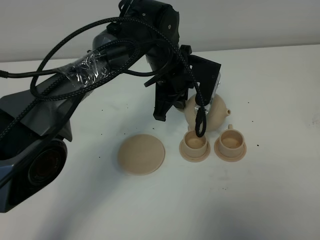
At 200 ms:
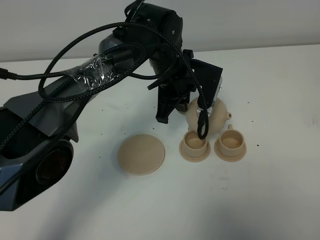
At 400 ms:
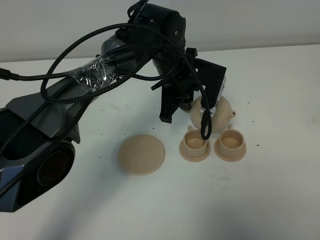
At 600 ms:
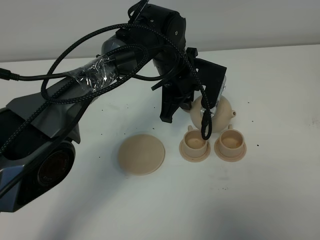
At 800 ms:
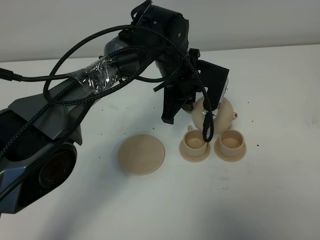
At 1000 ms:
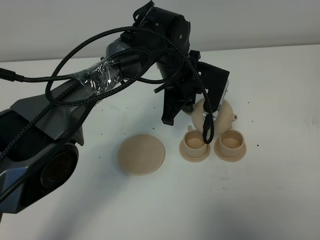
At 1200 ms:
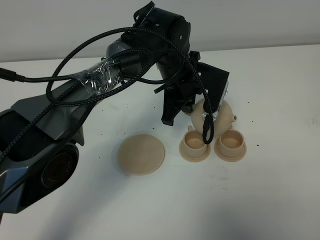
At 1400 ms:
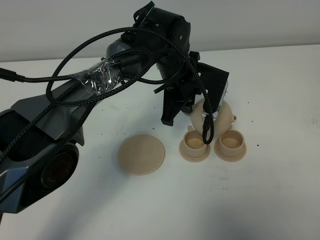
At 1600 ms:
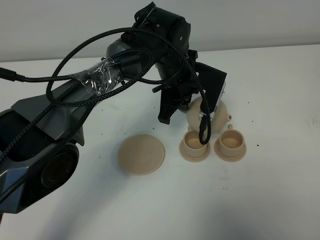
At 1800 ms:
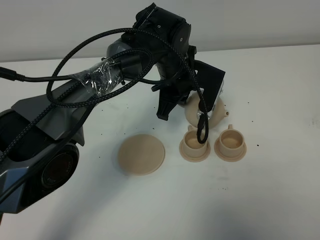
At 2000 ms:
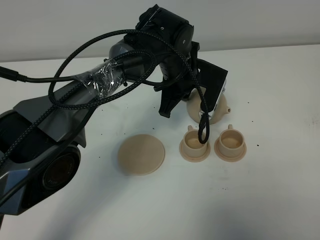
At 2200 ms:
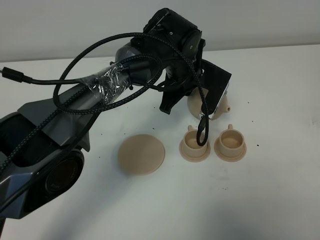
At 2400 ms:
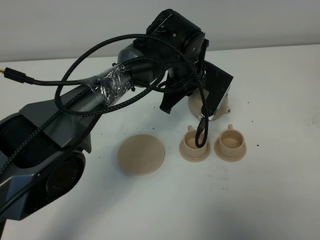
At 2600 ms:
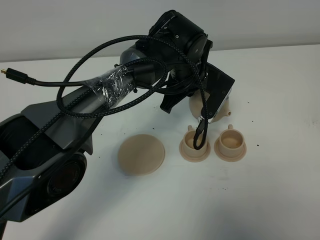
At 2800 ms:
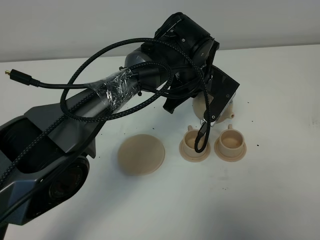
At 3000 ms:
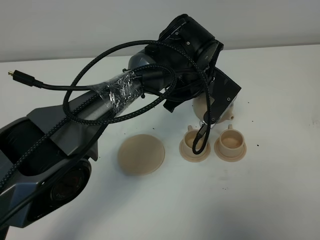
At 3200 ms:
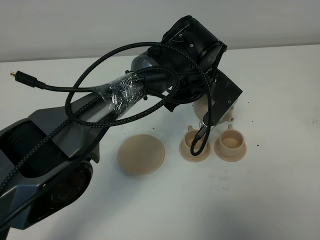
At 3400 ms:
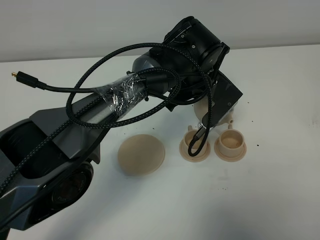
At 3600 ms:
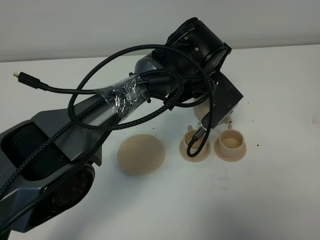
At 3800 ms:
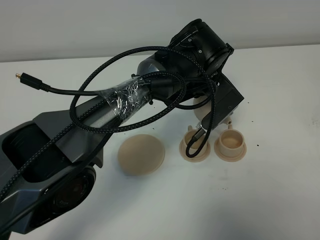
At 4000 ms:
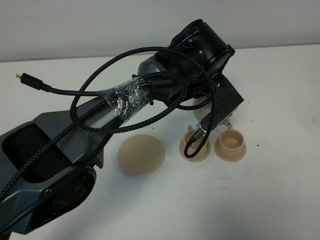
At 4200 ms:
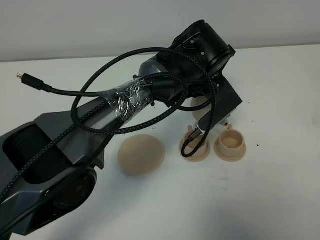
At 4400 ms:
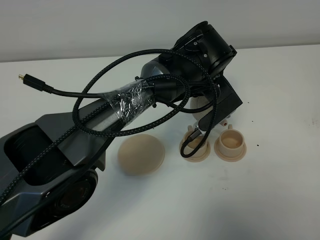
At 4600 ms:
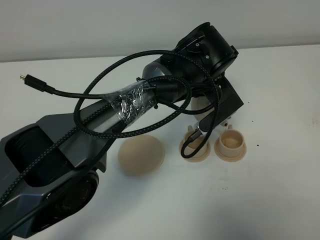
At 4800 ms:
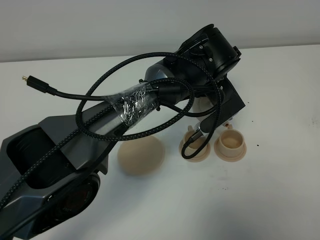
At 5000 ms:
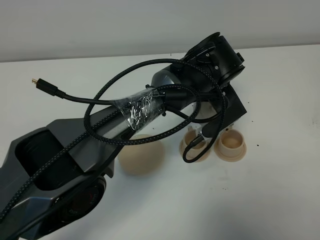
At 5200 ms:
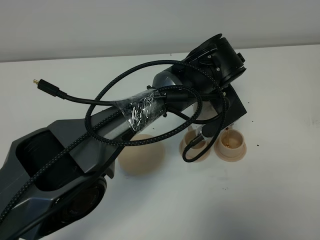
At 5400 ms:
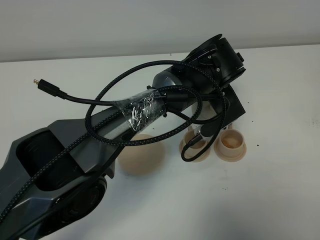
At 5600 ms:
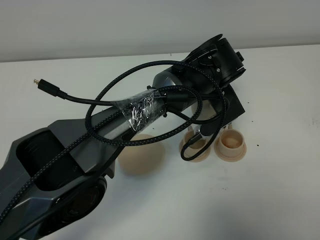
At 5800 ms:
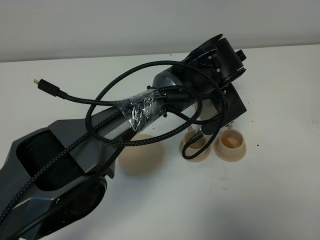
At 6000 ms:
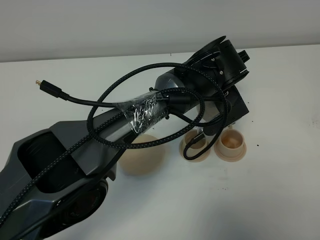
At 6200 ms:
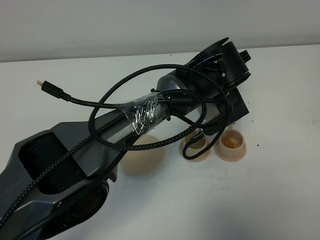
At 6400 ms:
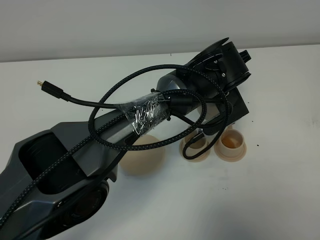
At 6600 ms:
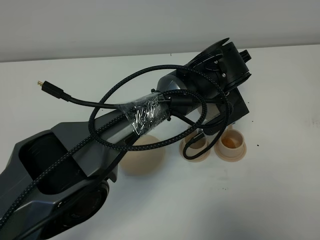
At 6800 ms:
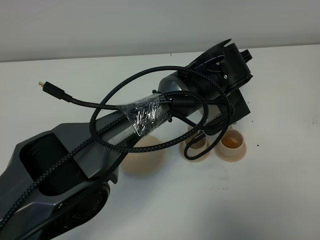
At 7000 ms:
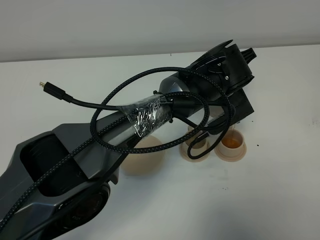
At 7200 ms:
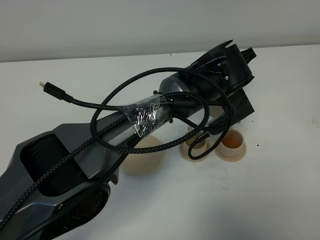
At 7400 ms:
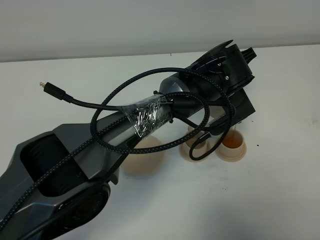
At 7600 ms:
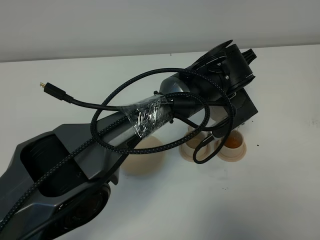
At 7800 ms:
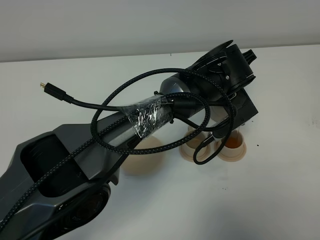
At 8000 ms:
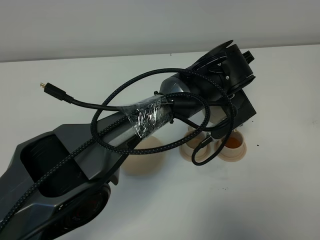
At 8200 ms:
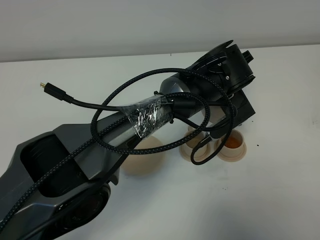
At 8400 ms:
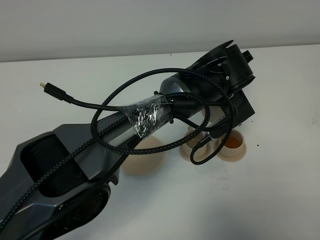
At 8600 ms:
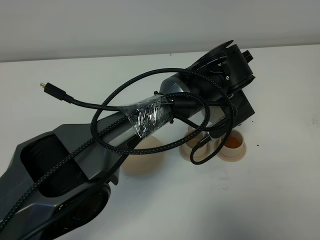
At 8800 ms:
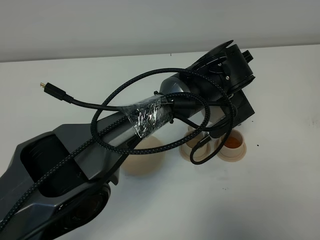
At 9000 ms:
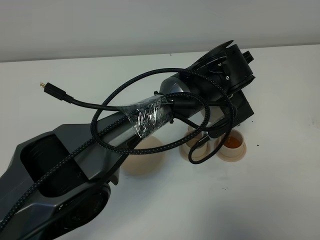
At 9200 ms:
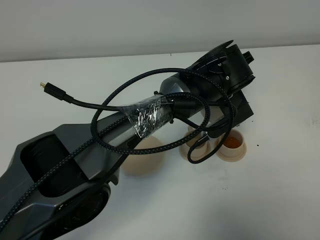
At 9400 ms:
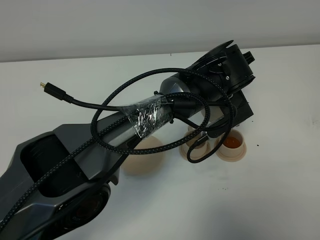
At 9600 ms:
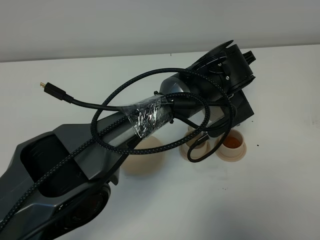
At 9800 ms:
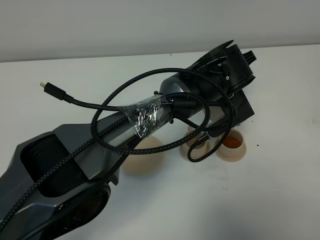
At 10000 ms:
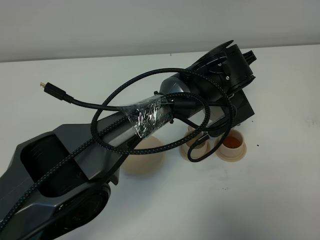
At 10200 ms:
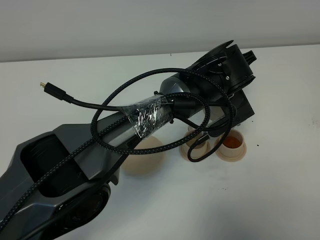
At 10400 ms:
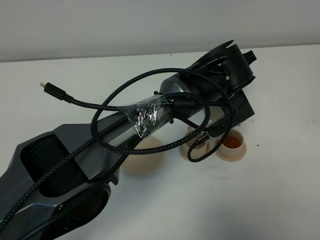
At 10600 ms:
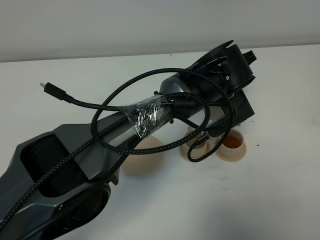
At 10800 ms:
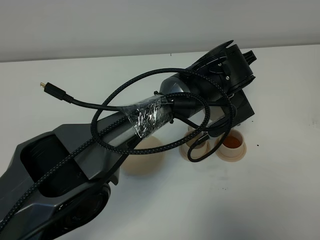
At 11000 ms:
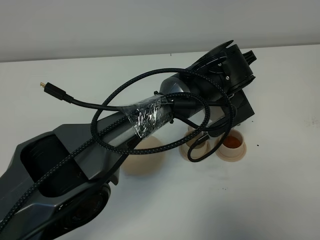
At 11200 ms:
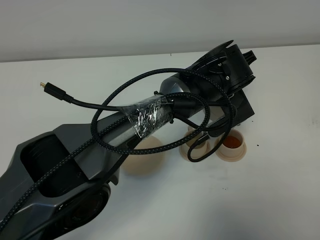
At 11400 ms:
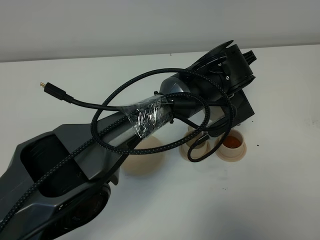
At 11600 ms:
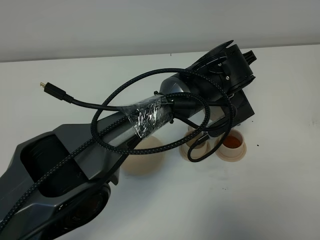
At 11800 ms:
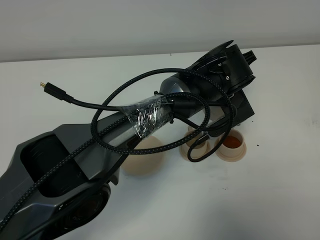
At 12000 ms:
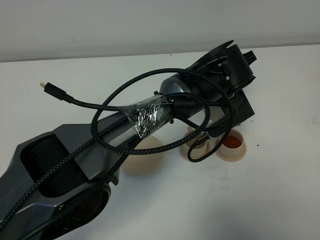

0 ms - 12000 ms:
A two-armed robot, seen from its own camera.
Task of the whole recording: grasp the brown teapot and pour the tea into the two brown teacups one by one, put the brown teapot back in its original place.
0 ms - 1600 ms: The grippers move only a little.
3000 ms - 4400 ms: The grippers make only small movements.
6000 ms - 12000 ms: The two grippers keep their place.

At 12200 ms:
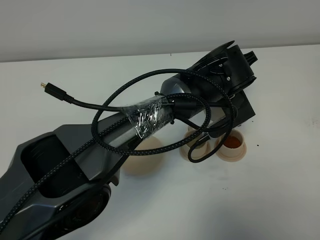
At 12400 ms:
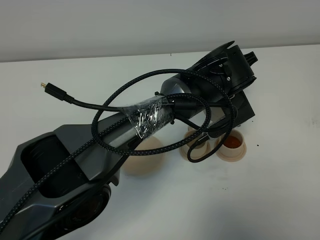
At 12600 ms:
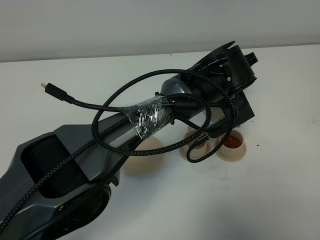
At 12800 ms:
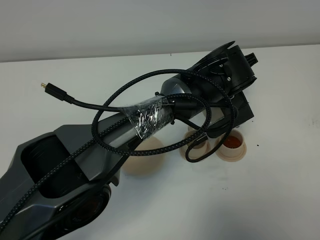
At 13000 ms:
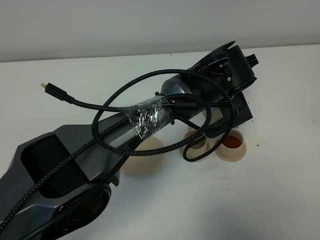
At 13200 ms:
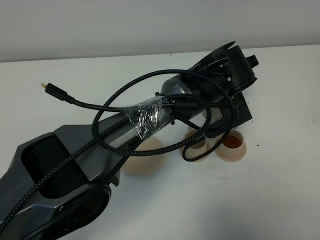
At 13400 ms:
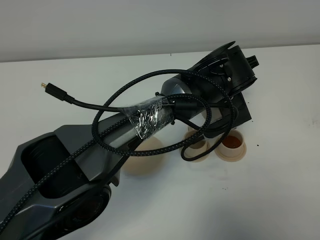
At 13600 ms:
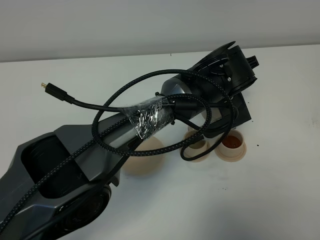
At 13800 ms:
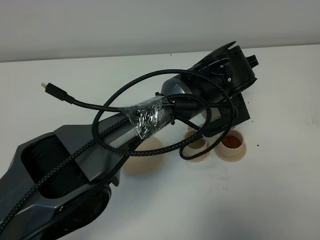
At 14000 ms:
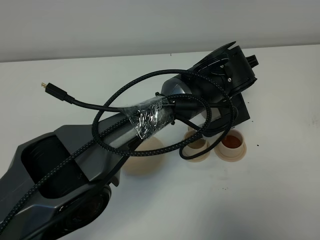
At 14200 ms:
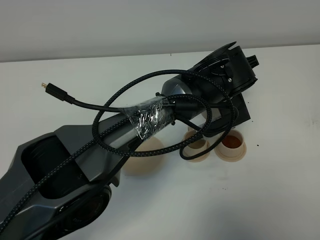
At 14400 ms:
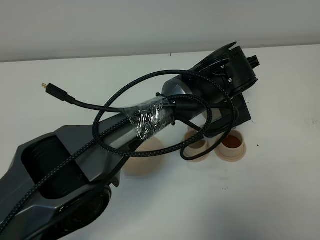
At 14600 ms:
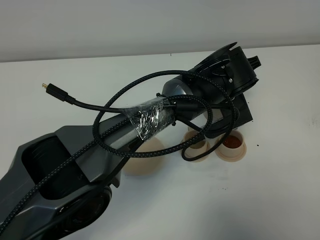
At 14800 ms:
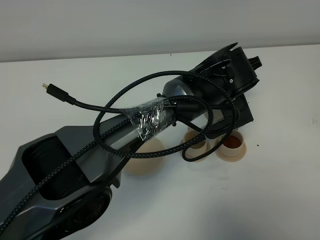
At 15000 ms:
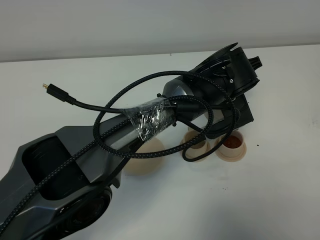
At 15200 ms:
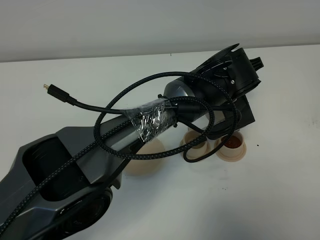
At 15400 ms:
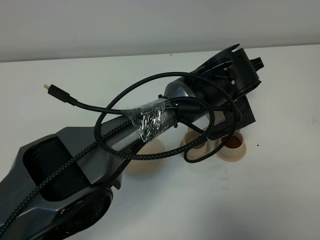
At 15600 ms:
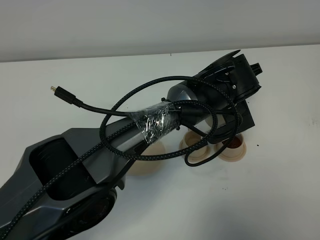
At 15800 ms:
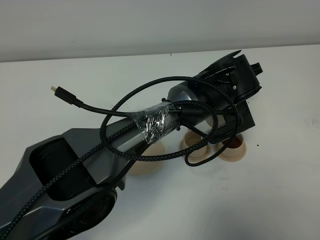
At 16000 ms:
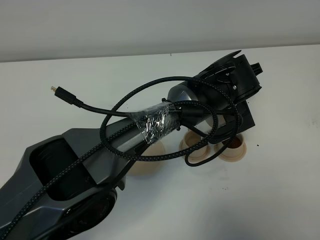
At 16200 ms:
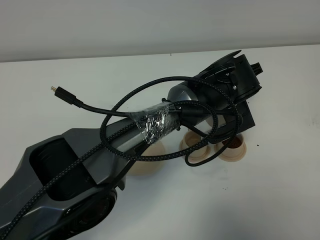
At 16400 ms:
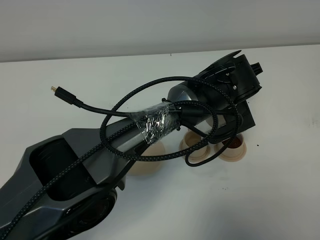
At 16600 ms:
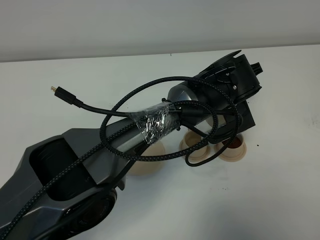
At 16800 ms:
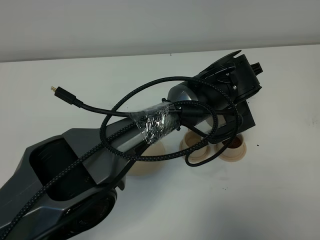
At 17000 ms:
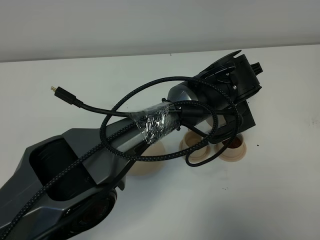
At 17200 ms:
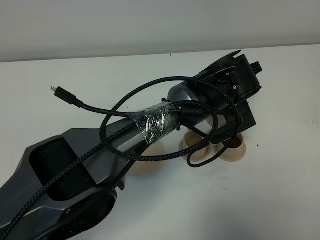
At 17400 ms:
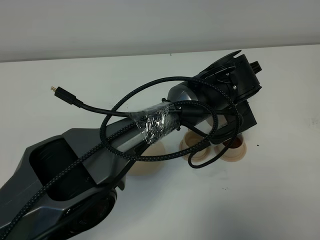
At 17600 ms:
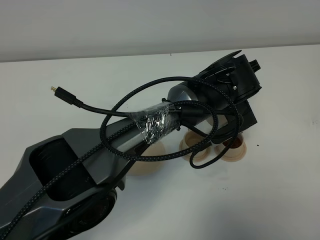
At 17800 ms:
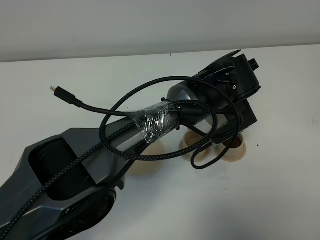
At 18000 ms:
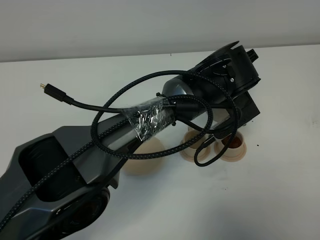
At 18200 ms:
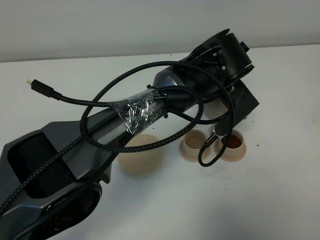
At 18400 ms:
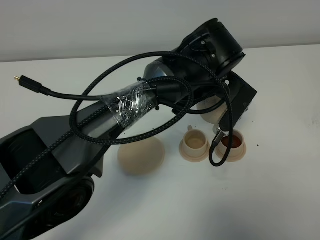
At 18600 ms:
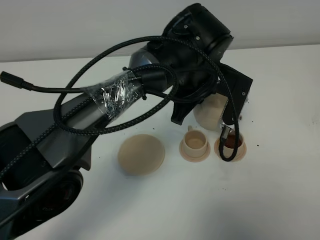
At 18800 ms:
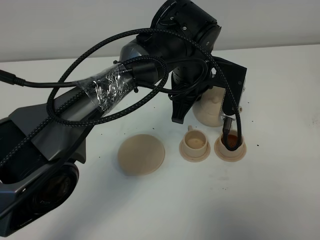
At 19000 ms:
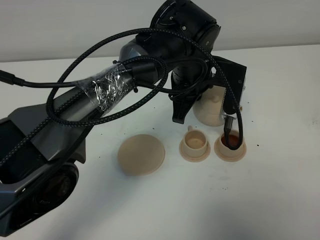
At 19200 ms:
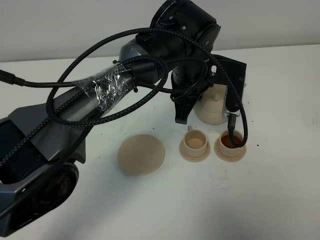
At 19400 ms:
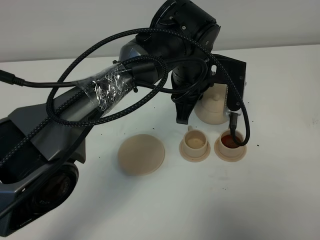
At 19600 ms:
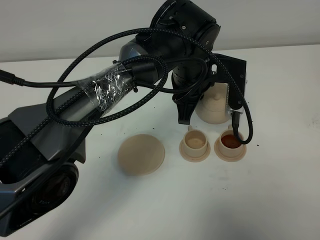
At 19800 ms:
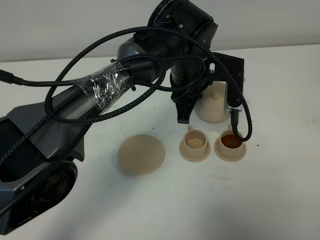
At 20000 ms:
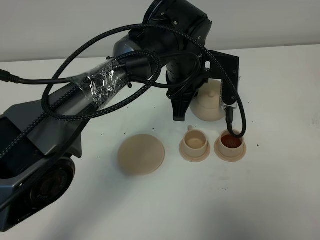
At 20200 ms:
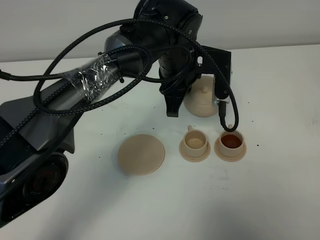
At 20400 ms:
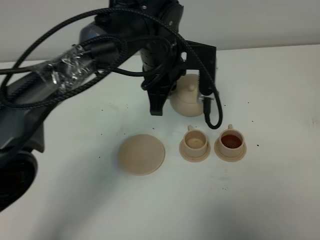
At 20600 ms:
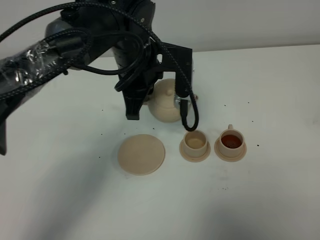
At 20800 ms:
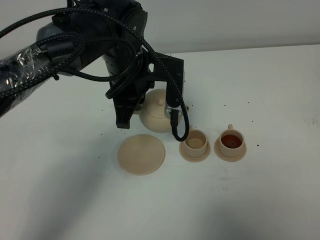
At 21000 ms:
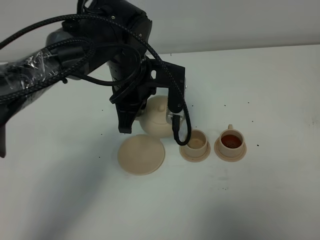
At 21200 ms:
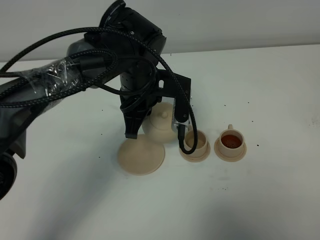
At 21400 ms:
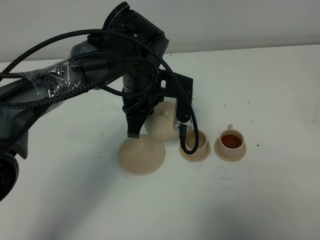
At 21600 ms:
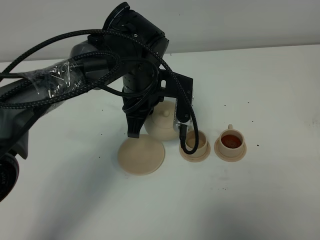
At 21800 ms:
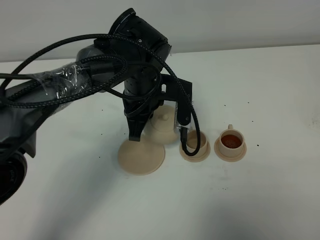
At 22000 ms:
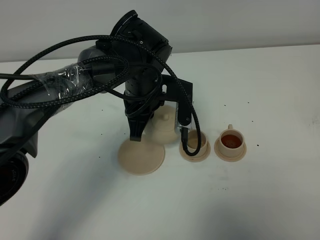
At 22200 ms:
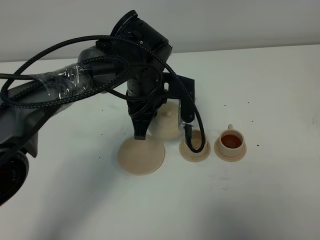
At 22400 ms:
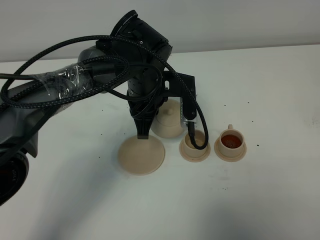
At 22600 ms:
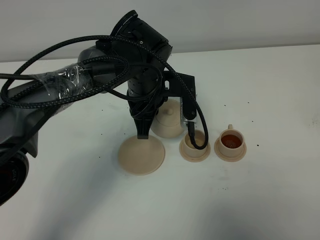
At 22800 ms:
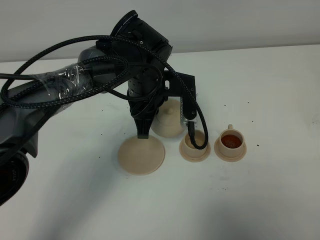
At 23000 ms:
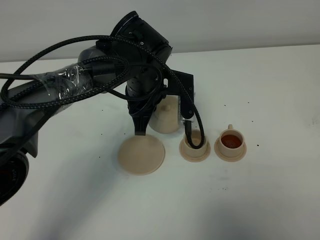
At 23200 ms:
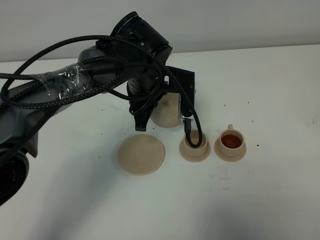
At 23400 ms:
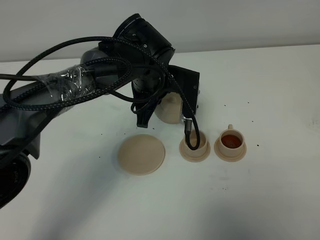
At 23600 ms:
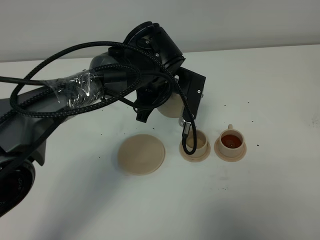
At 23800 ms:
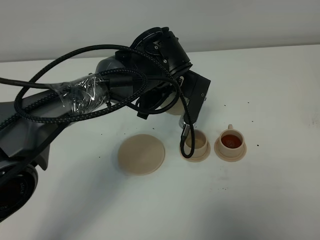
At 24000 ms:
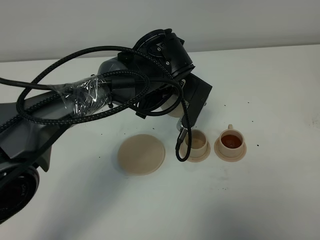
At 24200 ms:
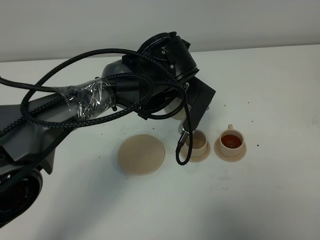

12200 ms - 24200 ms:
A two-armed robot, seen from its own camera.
Task of the whole recording: grasp the brown teapot and pour the tea into the two brown teacups one by one, put the brown teapot back in its original place.
12200 ms - 13800 ms: The grippers move only a little.
13800 ms - 15200 ms: Both grippers stay put.
15200 ms - 16600 ms: Both grippers stay put.
19800 ms - 21200 ms: The left gripper goes some 10 cm to the left.
21200 ms - 22600 ms: The grippers stay close to where they were, moving slightly.
